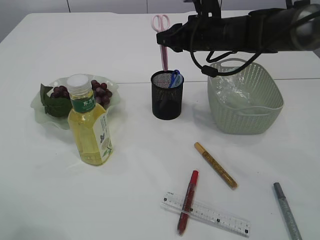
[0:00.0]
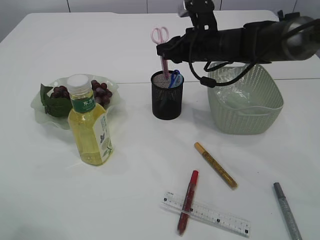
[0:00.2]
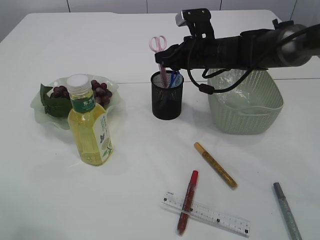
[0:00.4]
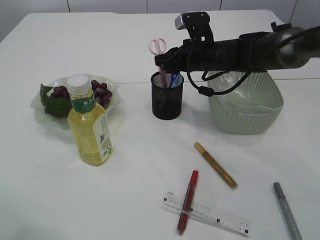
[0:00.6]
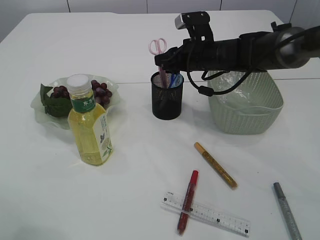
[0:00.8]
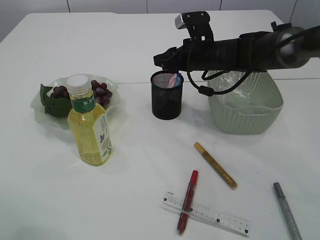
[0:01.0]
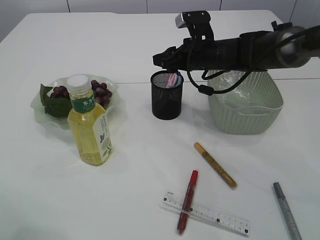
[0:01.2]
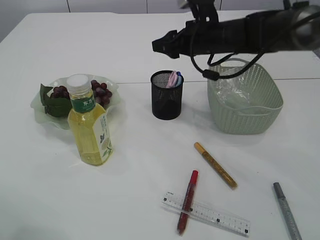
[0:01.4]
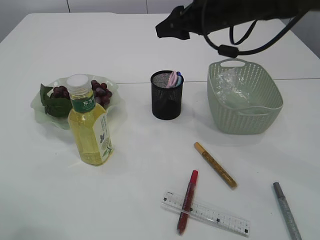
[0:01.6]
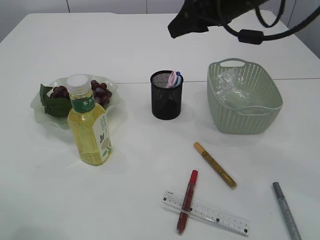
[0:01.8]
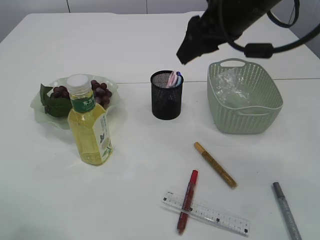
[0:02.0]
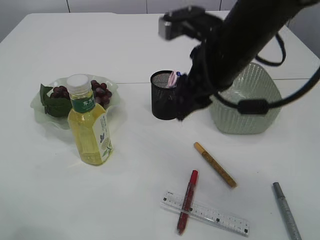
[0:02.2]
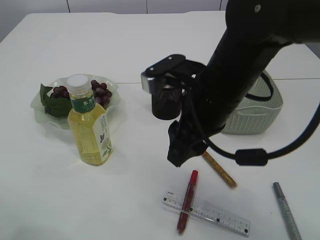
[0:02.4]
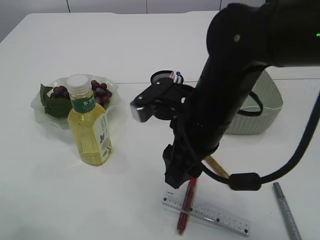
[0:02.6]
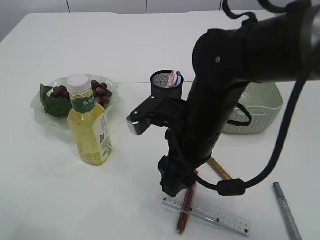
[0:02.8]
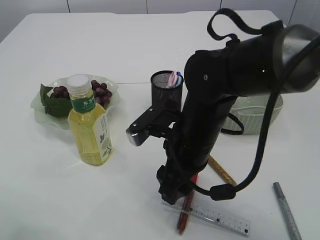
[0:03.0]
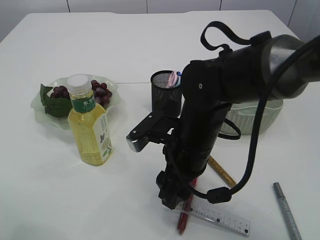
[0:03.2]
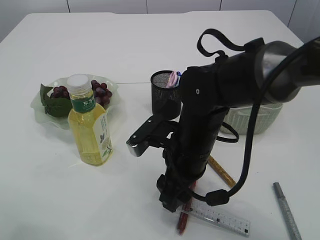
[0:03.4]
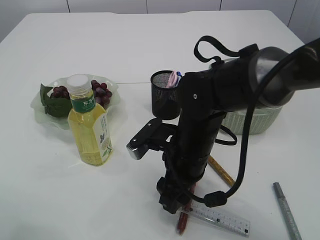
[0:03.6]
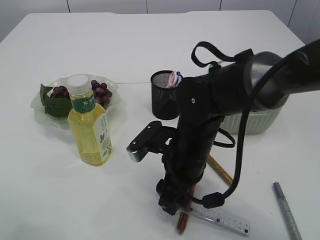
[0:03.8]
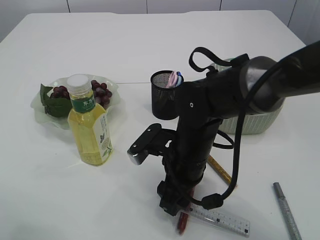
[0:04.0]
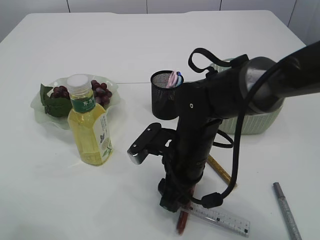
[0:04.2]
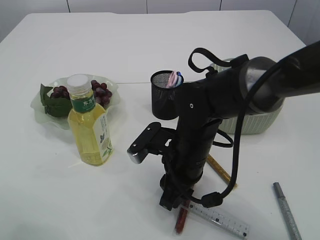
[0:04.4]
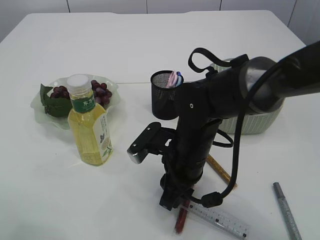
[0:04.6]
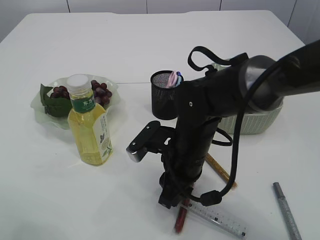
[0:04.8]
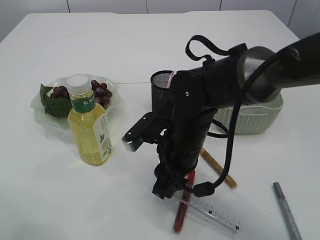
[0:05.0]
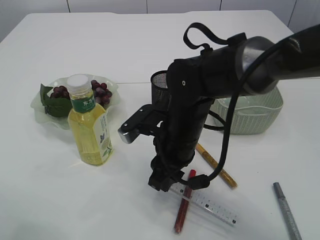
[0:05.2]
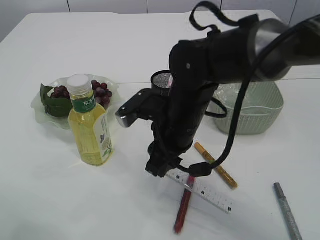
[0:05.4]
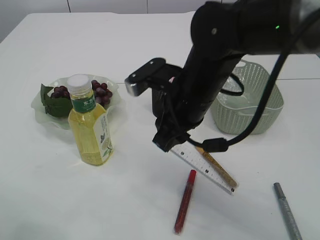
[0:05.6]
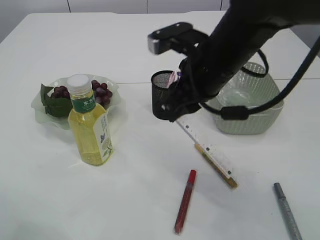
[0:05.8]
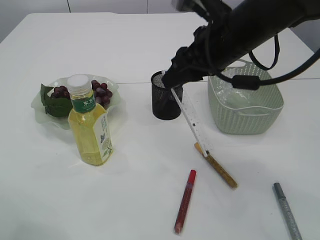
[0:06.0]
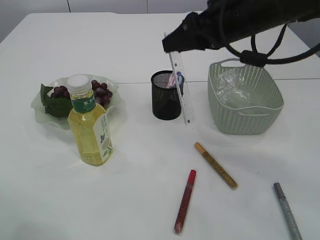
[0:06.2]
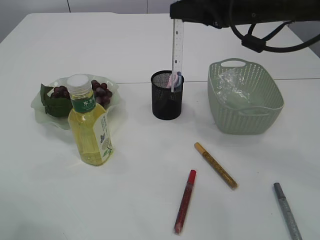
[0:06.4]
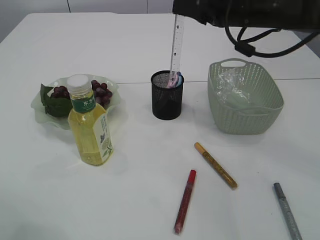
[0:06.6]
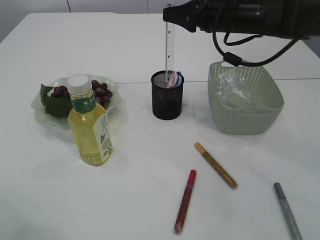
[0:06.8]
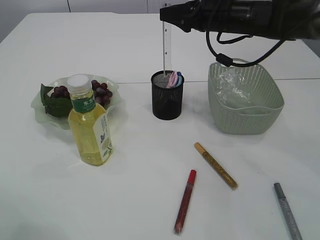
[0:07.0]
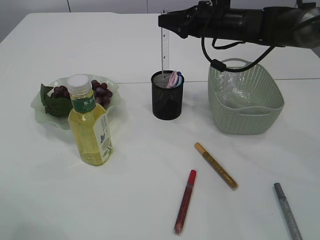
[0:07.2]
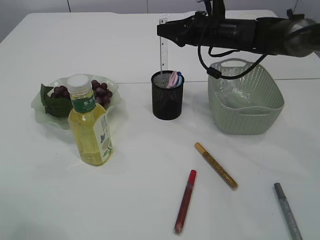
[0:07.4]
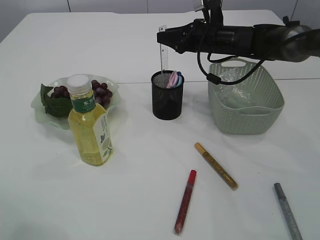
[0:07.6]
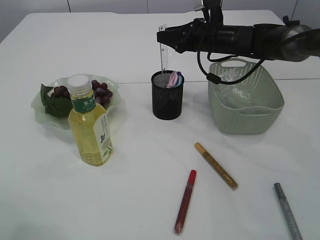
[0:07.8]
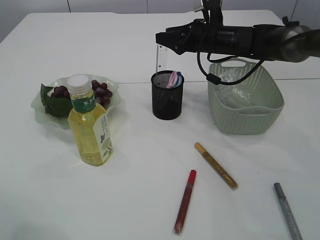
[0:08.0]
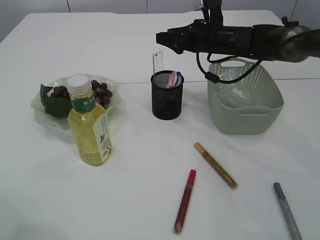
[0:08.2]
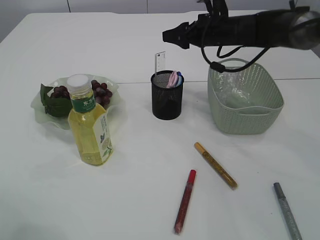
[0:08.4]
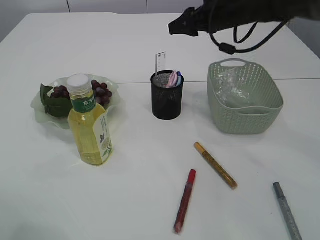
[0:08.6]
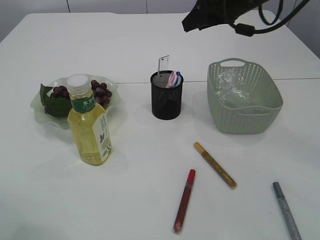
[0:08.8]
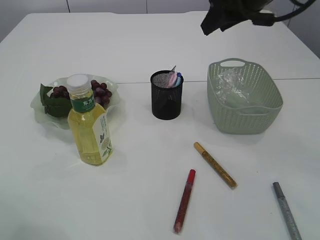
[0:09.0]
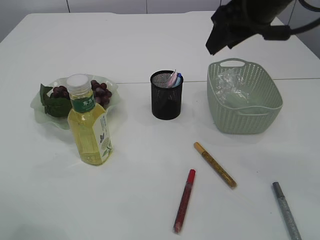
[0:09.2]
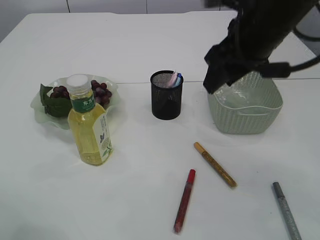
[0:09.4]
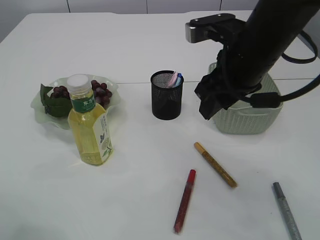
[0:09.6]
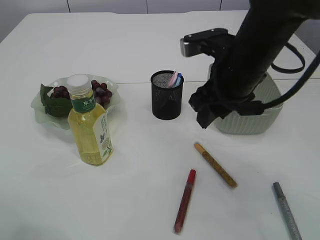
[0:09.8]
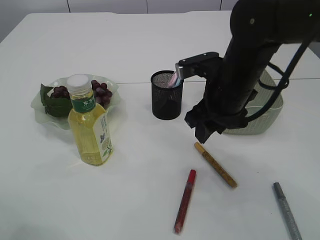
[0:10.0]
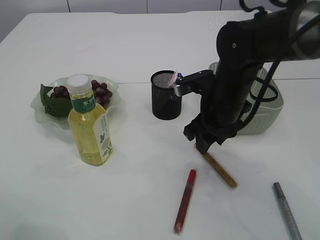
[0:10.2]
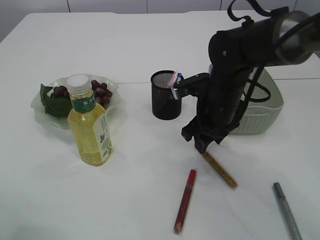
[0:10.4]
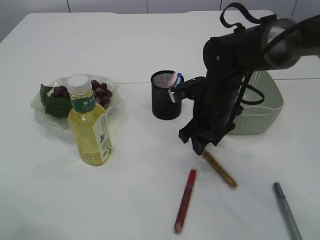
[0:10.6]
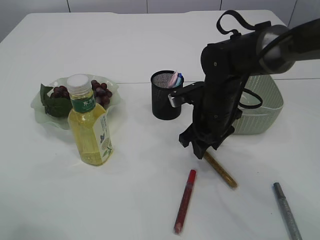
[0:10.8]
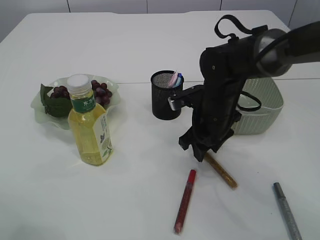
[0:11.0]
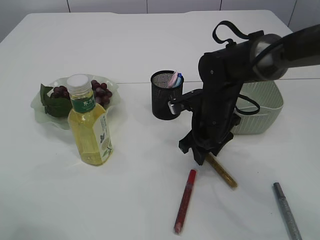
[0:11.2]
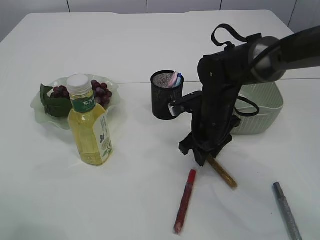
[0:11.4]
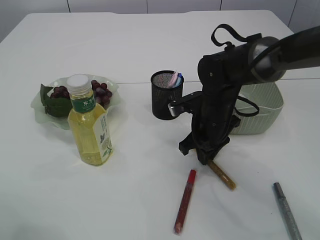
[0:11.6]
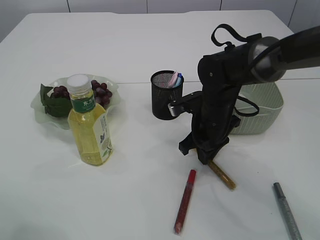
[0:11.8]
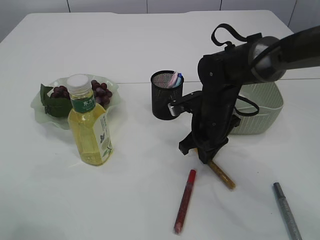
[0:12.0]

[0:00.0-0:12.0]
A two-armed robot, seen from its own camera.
Step, 0:01.6 to 0:05.6: pick up the ruler.
Step, 0:05.8 to 0:08.6: Place the ruler into the pen holder.
0:00.0 to 0:01.6: The right gripper goes about 5 cm upward, and opens up.
0:01.6 to 0:03.0: The right gripper goes approximately 20 cm backward, downward and to the left.
0:03.0 to 0:04.4: The right gripper moves about 5 cm.
0:04.4 to 0:06.0: The right gripper moves upward, about 15 cm.
0:06.0 to 0:07.6: The right gripper heads forward and downward, covering roughly 20 cm.
0:07.6 to 0:09.0: The right gripper moves upward and backward, about 15 cm.
0:09.0 to 0:10.4: The right gripper travels downward by some 20 cm.
0:10.4 to 0:12.0: The right gripper closes up.

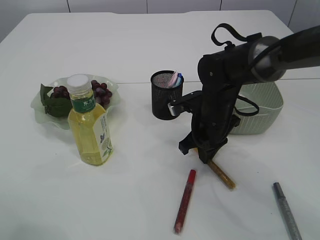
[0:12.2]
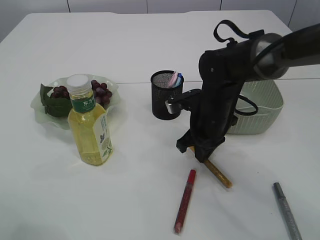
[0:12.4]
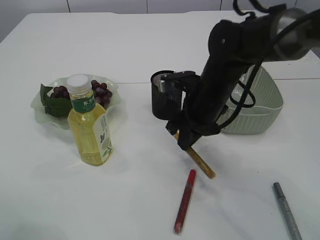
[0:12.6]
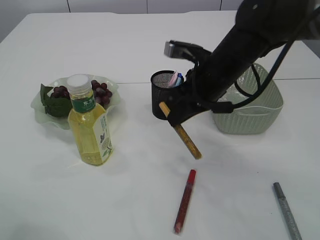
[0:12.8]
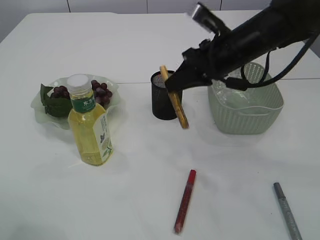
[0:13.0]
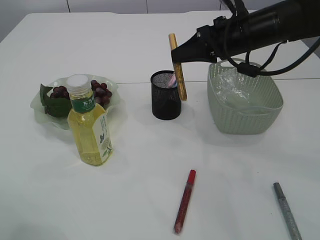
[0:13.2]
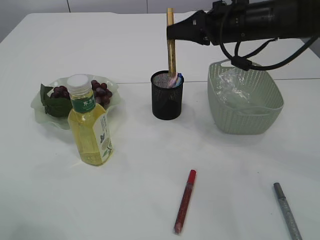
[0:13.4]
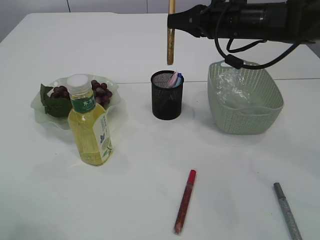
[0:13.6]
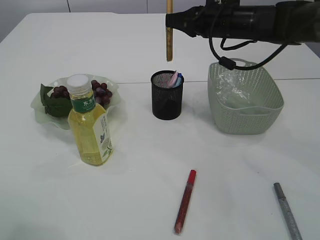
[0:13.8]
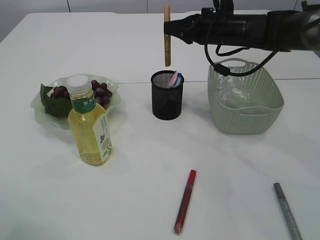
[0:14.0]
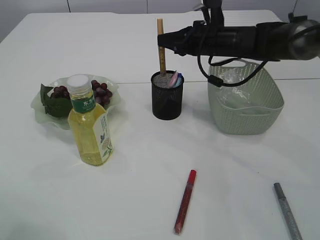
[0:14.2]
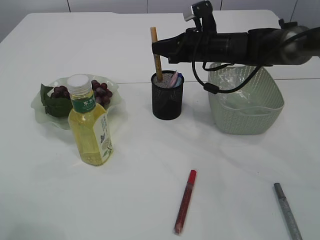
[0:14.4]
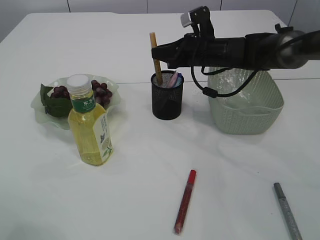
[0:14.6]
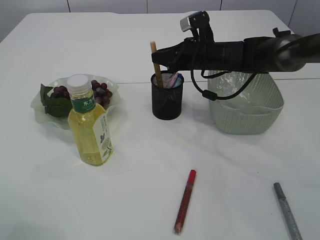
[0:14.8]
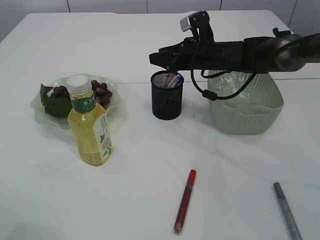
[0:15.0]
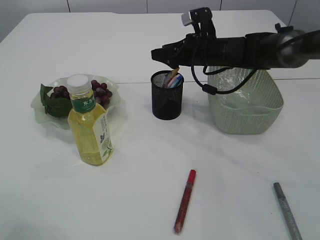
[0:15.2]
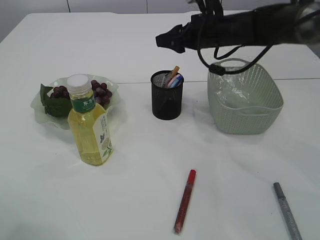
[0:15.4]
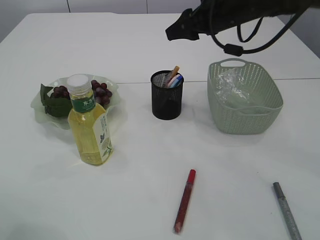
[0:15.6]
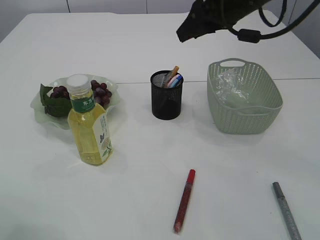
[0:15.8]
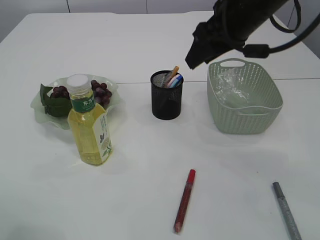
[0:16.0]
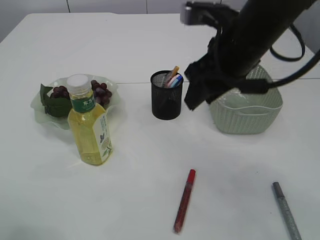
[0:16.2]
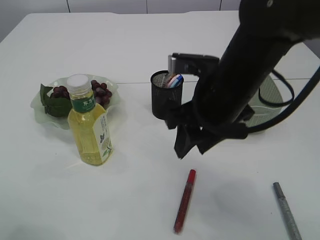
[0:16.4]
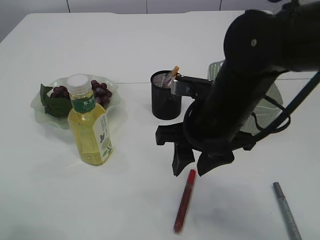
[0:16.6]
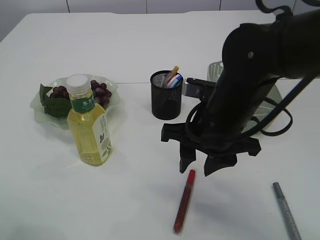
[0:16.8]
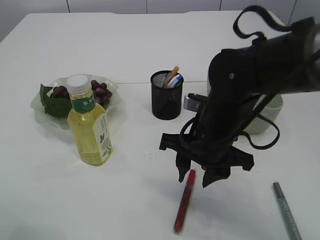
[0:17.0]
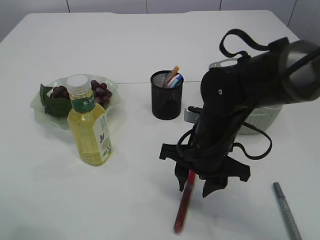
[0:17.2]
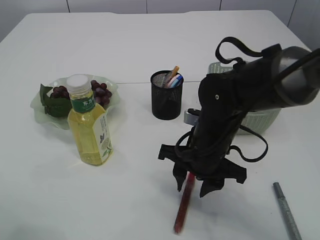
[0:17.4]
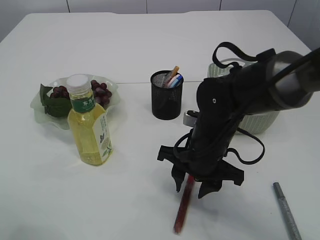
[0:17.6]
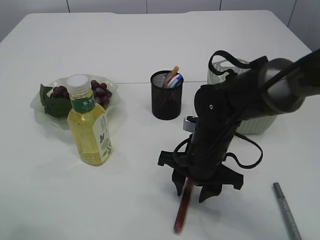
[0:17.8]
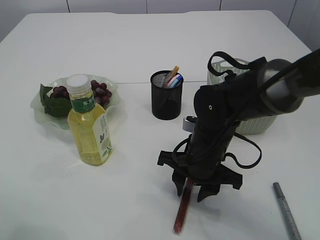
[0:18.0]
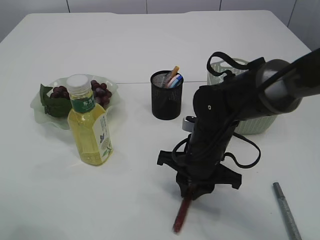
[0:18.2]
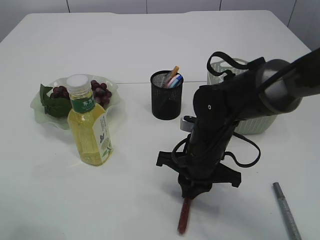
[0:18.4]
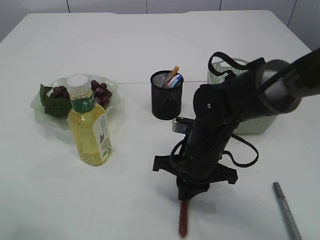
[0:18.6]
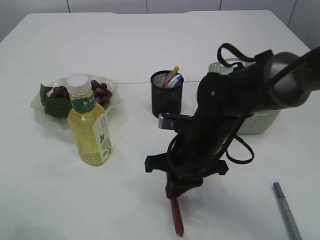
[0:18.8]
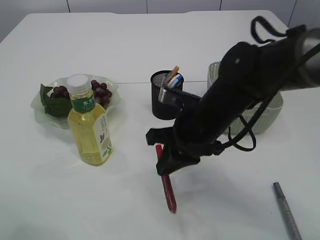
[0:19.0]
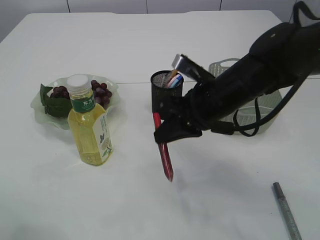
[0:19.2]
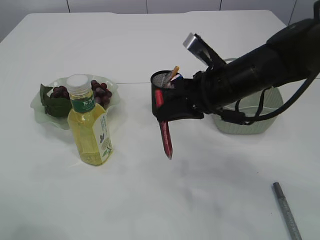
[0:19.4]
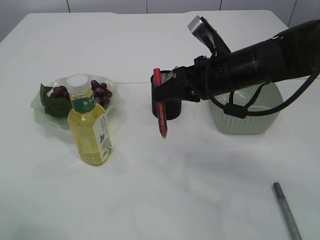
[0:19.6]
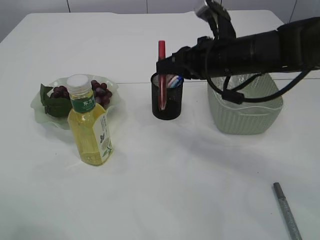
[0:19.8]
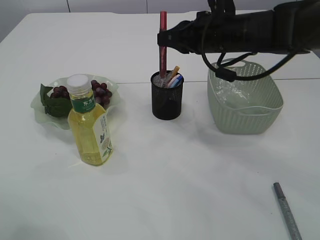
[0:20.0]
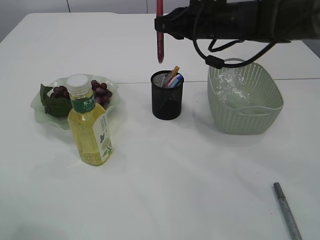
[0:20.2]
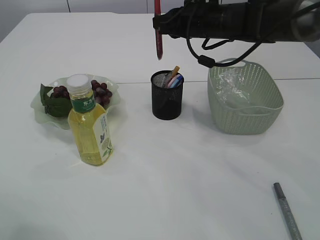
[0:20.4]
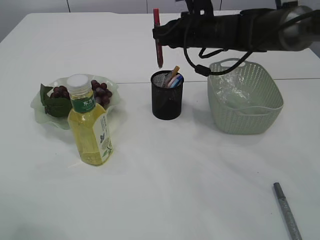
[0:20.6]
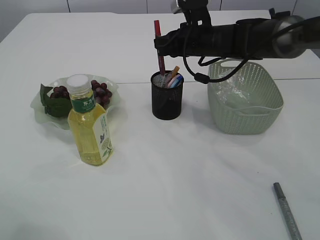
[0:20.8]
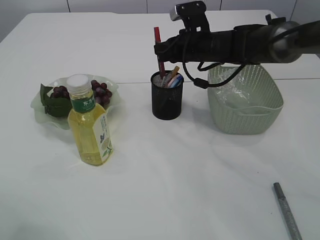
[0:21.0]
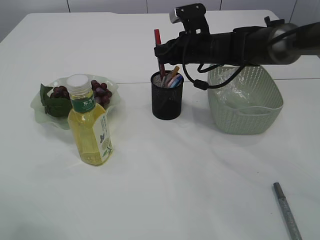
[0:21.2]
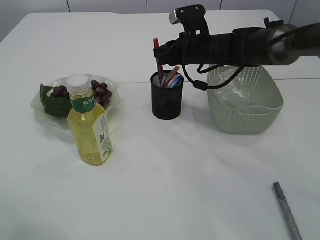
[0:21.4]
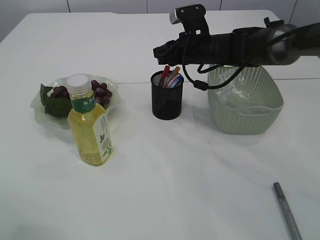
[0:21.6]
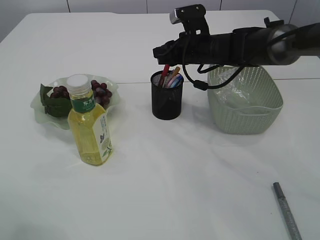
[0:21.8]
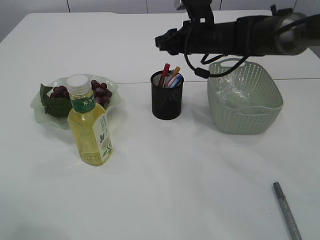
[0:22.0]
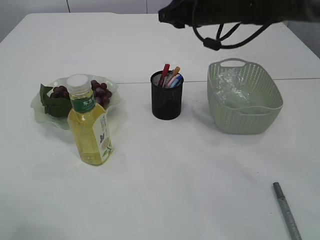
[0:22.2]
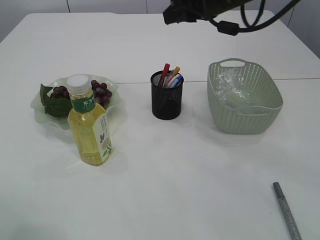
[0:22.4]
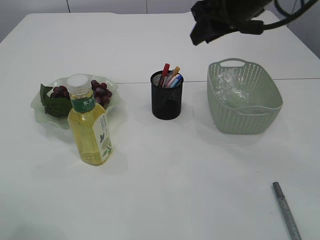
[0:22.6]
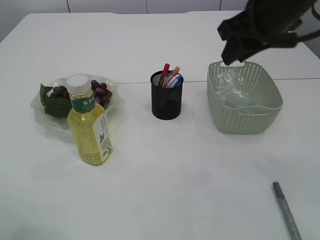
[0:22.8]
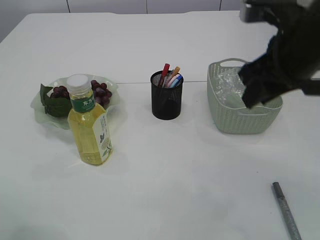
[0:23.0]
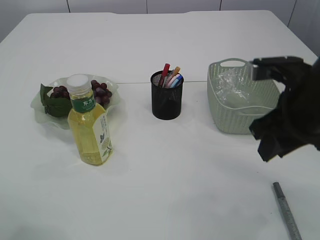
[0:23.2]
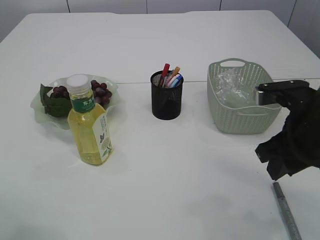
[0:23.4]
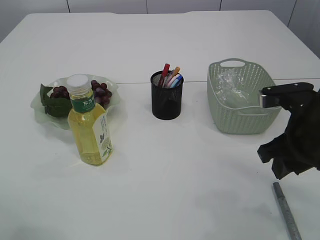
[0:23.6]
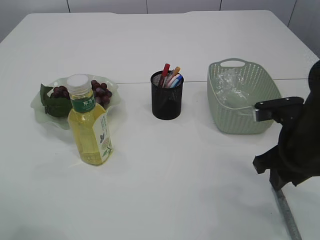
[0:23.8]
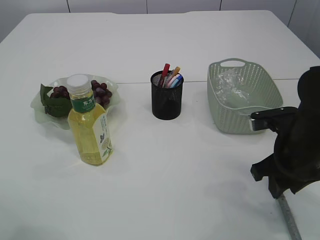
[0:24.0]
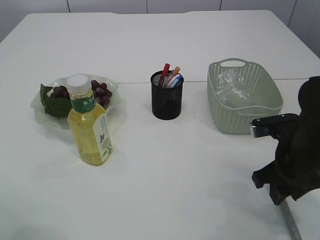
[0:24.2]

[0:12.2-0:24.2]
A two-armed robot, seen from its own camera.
Step, 0:13.0 to 0:15.6: place the yellow glue into the pen holder.
Step, 0:15.8 to 0:19.2: pick up the red glue.
Step, 0:19.4 to 0:22.0: place the red glue into the pen holder.
0:12.2 to 0:13.8: The right gripper travels upward and forward by roughly 15 cm.
0:13.8 to 0:15.2: The right gripper is displaced downward by approximately 5 cm, and opens its fingers.
0:15.2 to 0:16.6: The right gripper is displaced backward by roughly 25 cm.
0:16.6 to 0:18.2: The right gripper is displaced downward by approximately 10 cm.
0:18.2 to 0:19.8: The right gripper moves upward and forward, approximately 15 cm.
0:19.8 to 0:21.2: The right gripper heads forward, covering about 10 cm.
0:21.2 to 0:22.6: The right gripper shifts some 20 cm upward and backward.
0:22.6 to 0:24.2: The right gripper travels downward and backward by approximately 25 cm.
